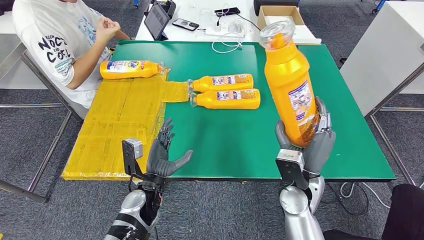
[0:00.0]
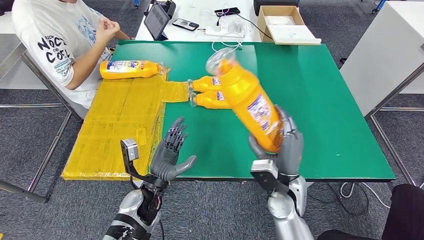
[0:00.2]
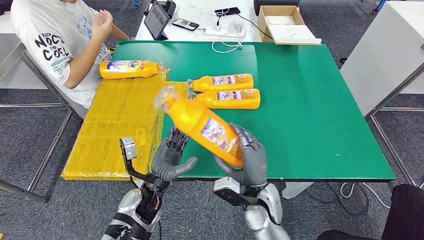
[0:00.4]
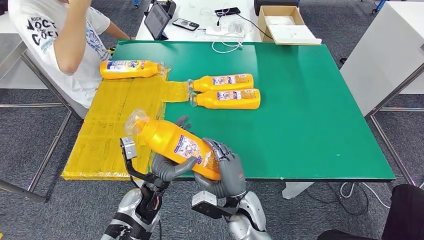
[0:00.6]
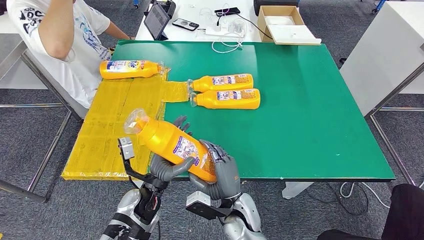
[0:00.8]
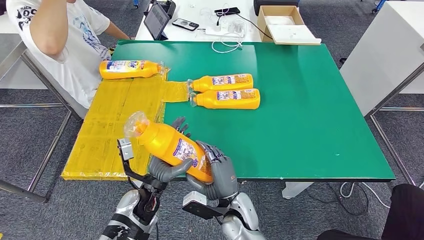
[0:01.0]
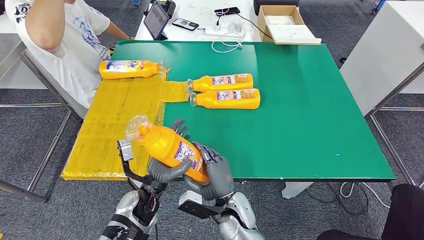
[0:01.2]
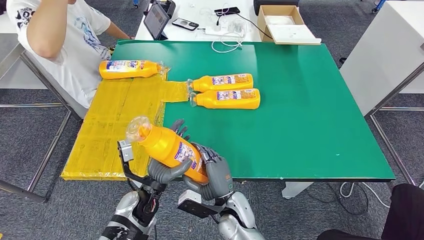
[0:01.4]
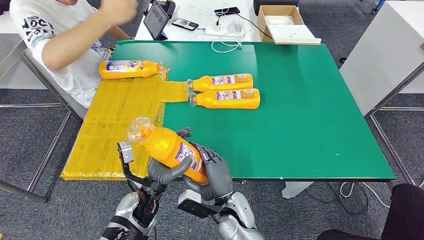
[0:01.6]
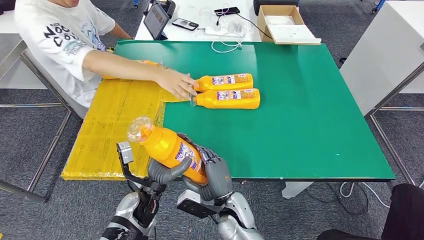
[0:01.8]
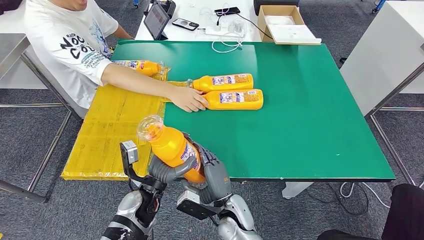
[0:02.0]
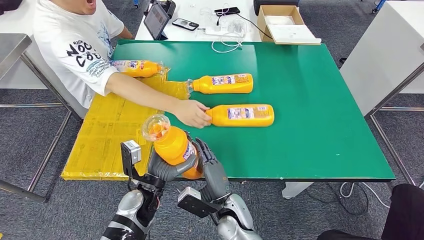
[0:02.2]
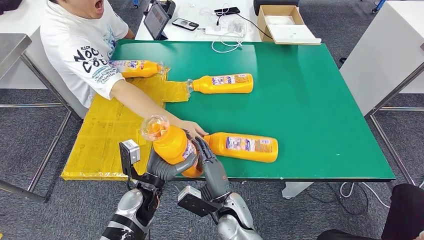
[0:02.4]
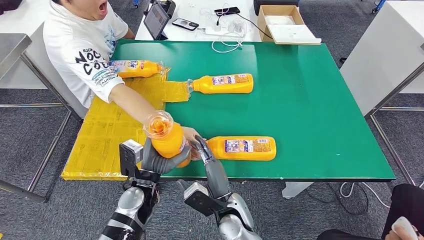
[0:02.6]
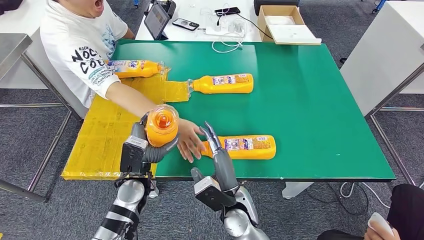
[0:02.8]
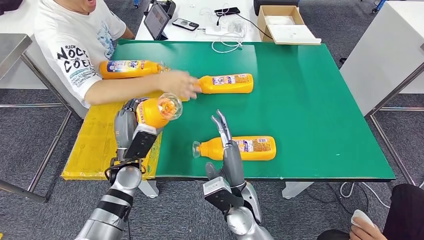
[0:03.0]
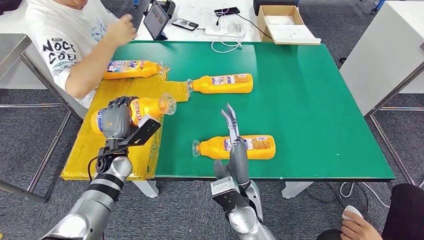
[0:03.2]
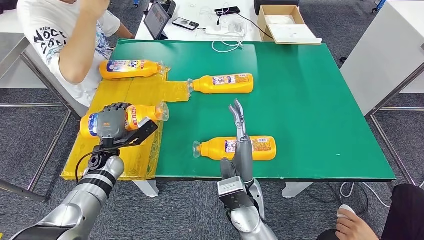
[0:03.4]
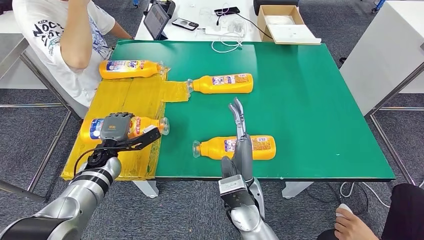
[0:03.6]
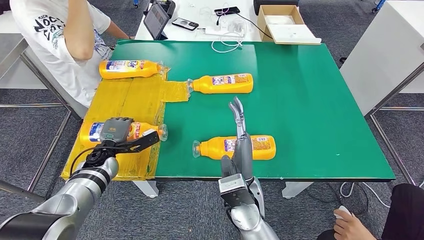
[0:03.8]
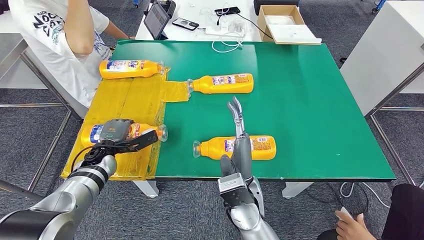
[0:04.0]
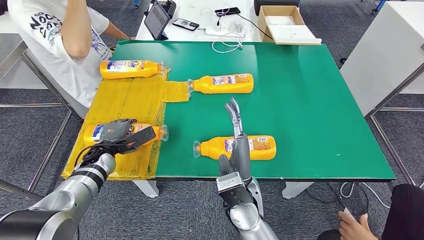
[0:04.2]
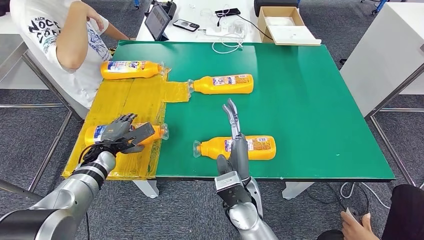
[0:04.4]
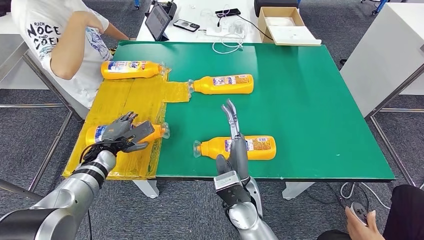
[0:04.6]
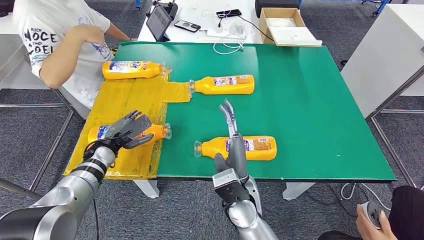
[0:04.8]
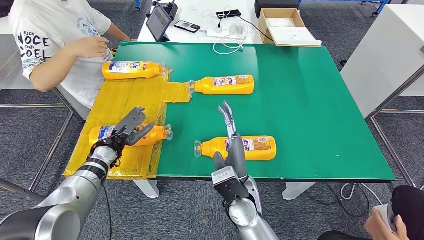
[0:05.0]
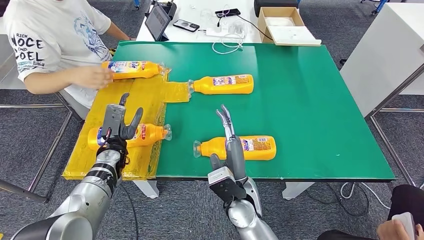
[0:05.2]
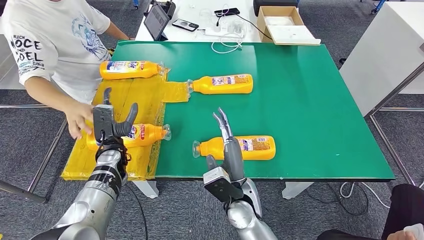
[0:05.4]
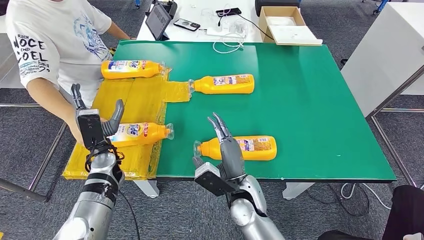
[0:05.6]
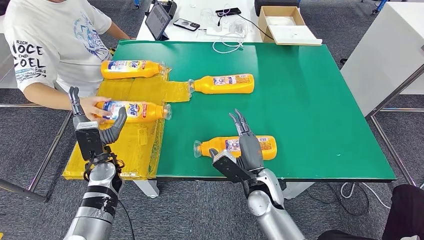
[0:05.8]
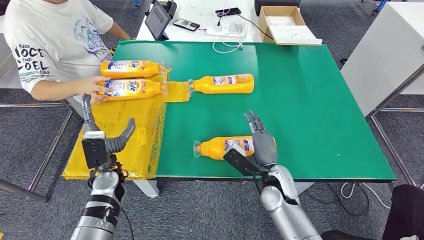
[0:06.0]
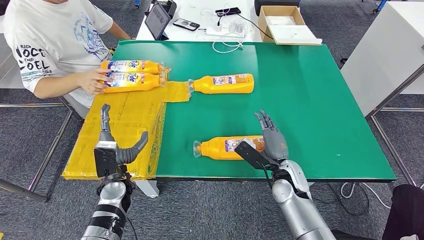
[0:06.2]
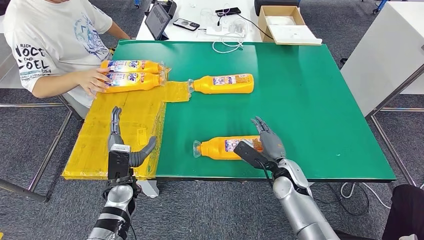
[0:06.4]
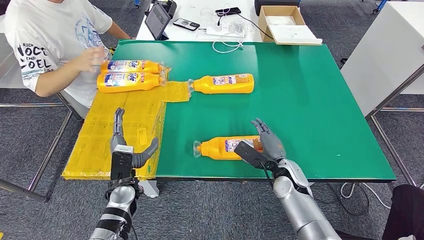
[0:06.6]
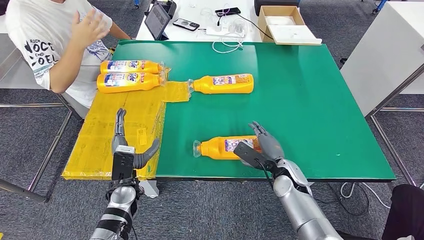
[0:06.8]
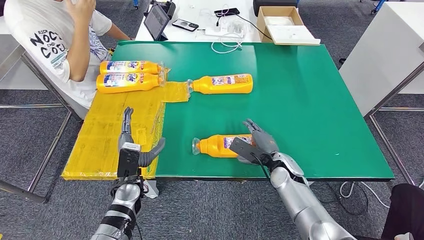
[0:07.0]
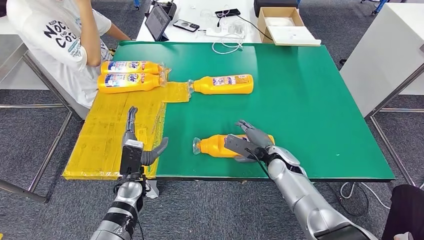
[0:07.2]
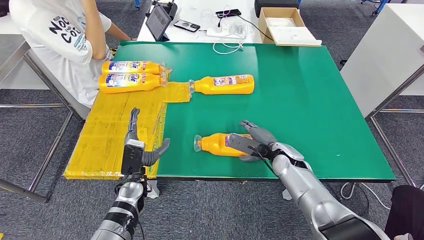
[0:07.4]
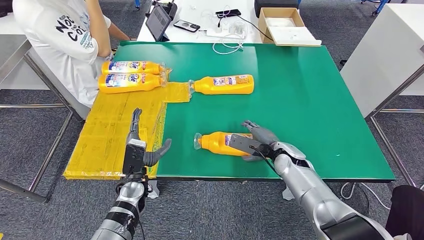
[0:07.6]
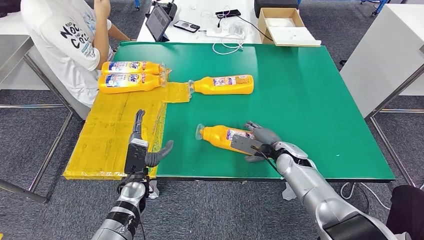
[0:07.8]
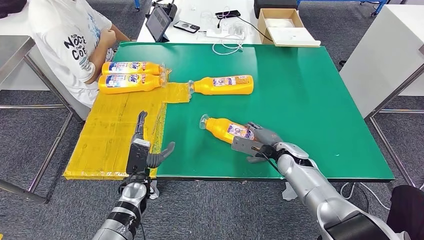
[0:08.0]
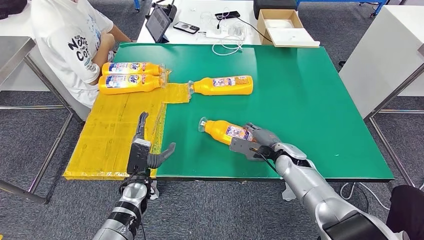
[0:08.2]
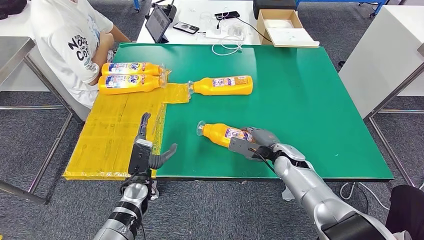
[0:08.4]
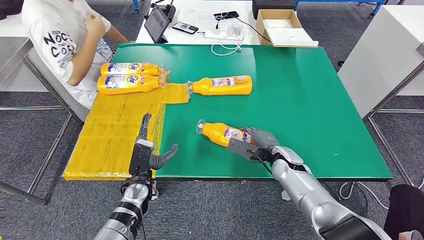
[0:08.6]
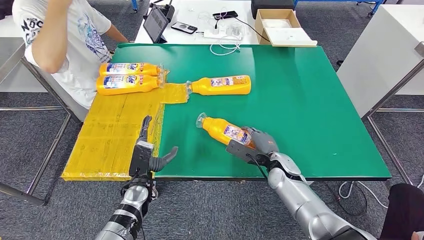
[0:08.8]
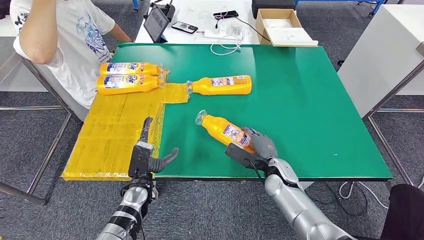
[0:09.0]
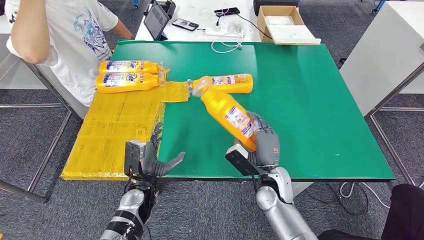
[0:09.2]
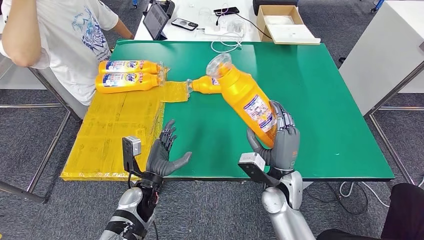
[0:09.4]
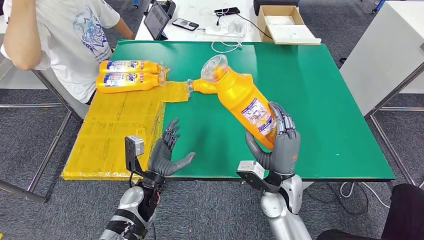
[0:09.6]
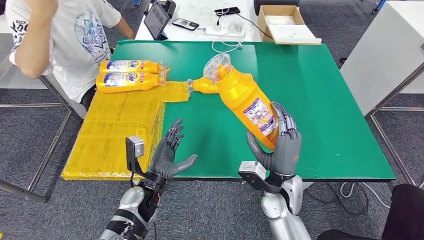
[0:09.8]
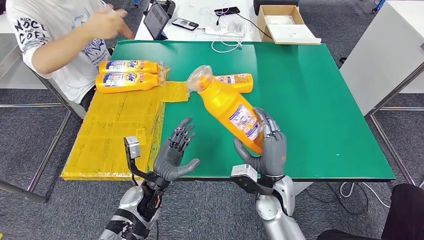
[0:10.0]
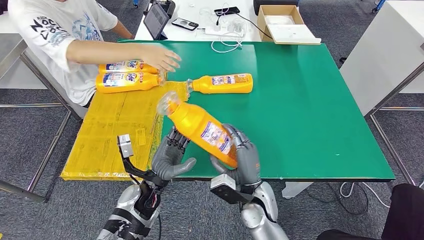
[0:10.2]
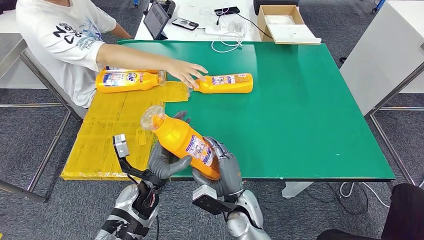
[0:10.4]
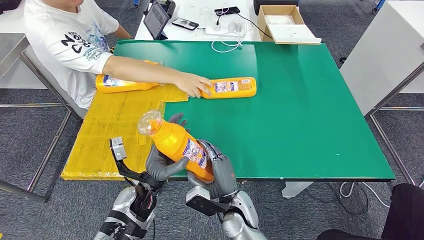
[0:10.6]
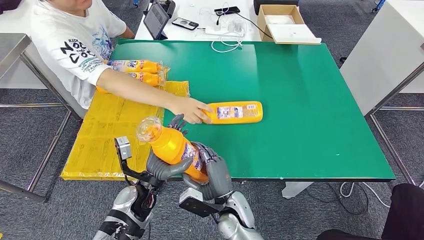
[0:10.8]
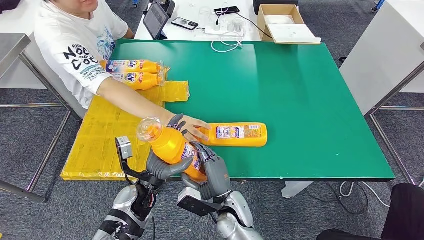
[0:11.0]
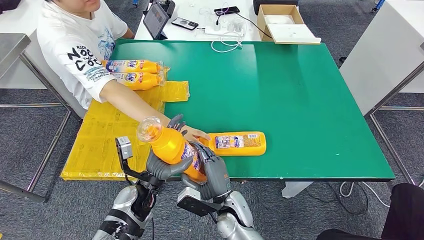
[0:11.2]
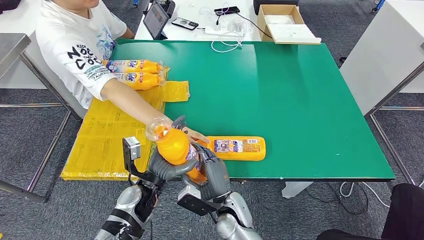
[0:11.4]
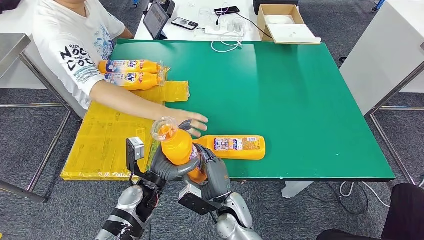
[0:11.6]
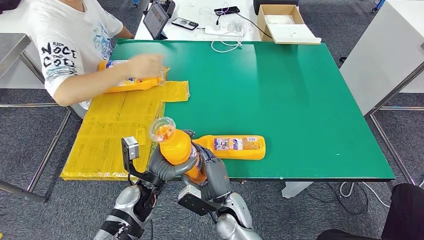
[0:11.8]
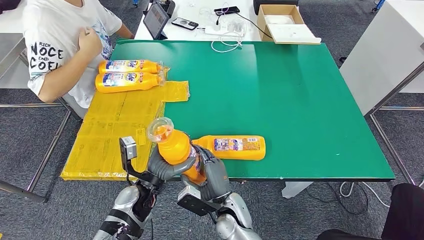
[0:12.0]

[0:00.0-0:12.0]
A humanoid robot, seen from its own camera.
Step, 0:00.2 to 0:05.8: Flip the fast-moving consumer goods bottle to the front side.
Step, 0:06.2 to 0:09.8: Pick up the fast-moving consumer goods bottle from the table.

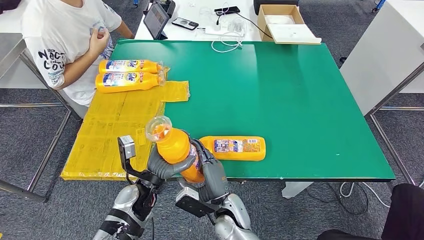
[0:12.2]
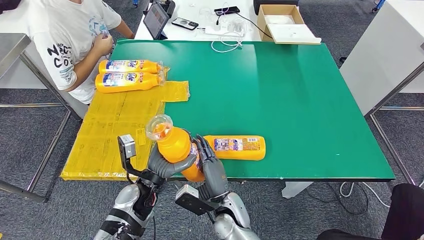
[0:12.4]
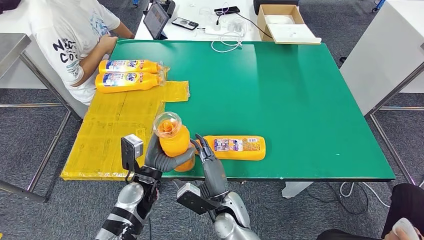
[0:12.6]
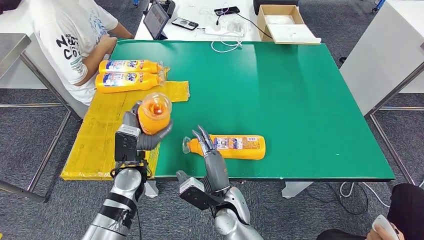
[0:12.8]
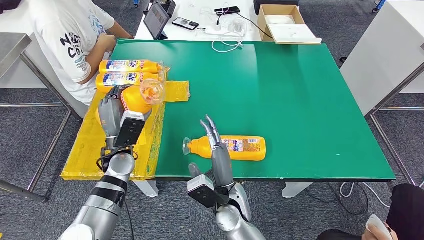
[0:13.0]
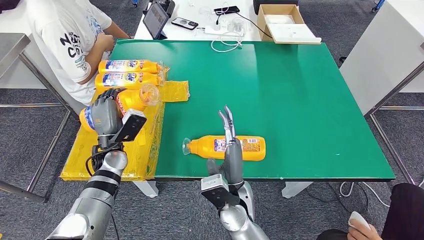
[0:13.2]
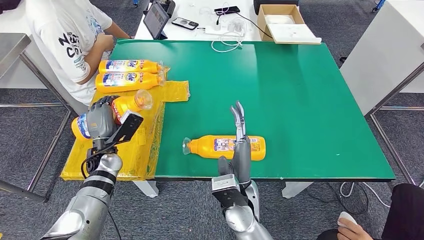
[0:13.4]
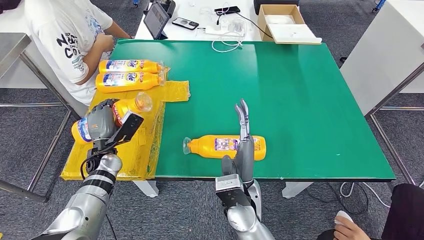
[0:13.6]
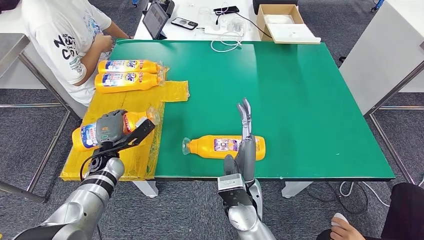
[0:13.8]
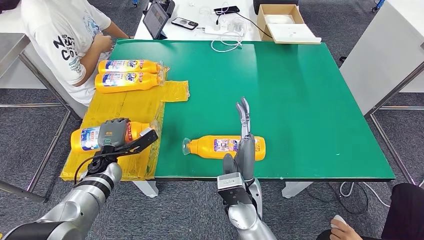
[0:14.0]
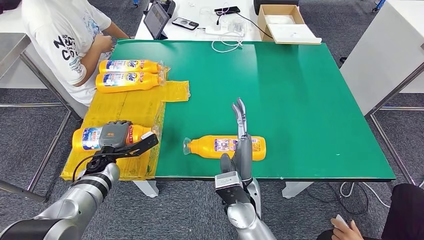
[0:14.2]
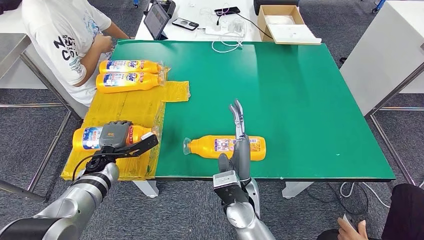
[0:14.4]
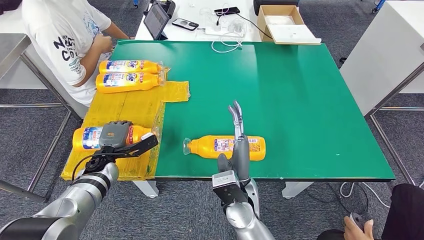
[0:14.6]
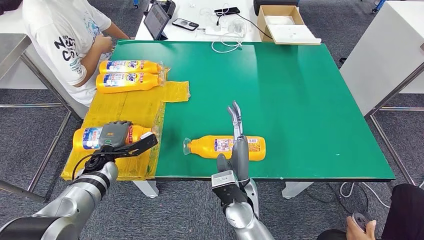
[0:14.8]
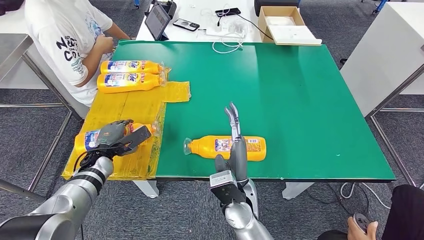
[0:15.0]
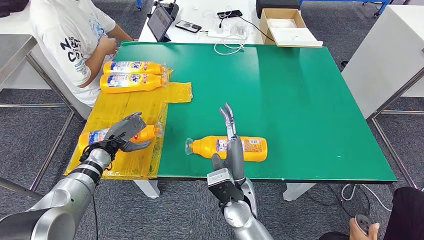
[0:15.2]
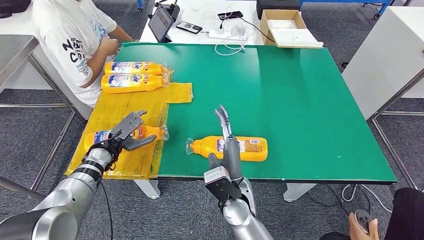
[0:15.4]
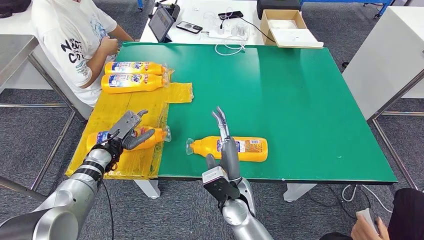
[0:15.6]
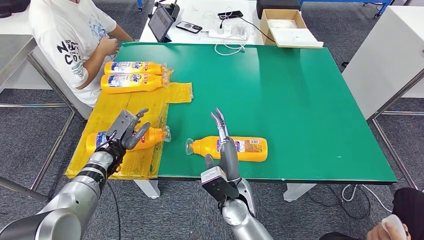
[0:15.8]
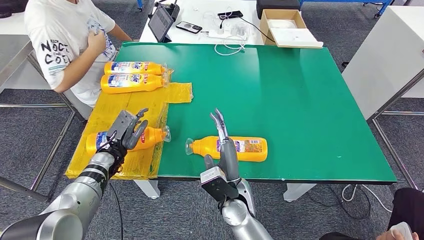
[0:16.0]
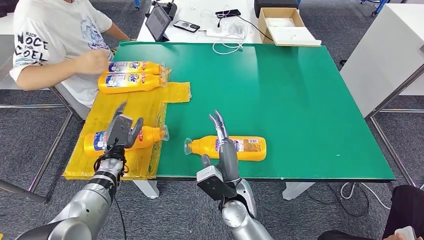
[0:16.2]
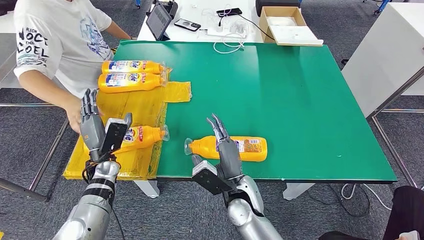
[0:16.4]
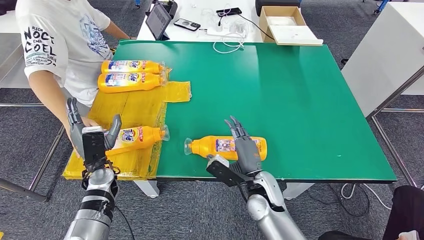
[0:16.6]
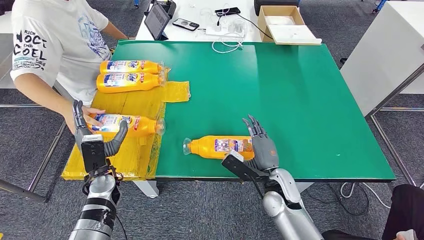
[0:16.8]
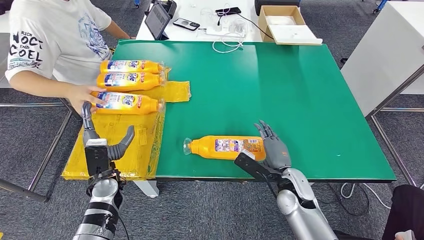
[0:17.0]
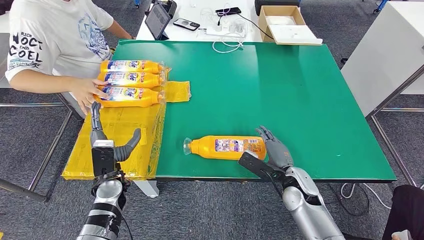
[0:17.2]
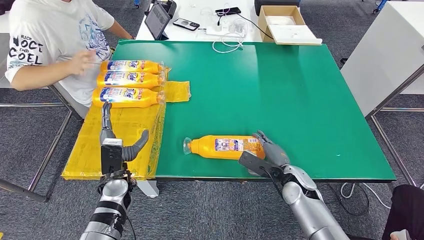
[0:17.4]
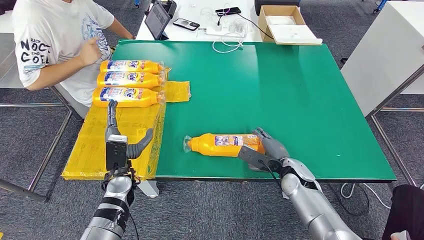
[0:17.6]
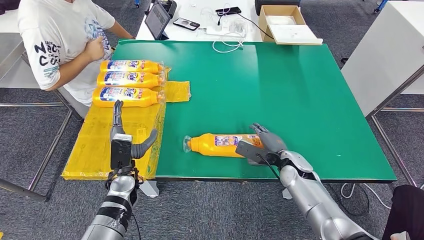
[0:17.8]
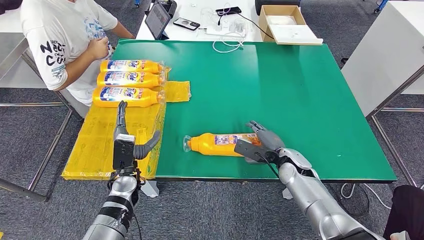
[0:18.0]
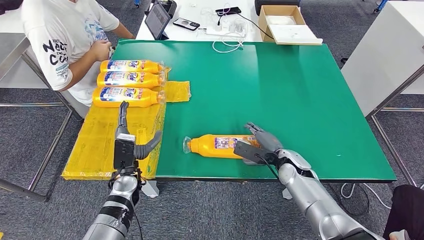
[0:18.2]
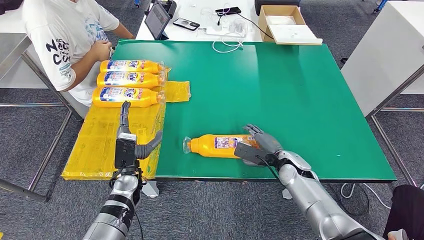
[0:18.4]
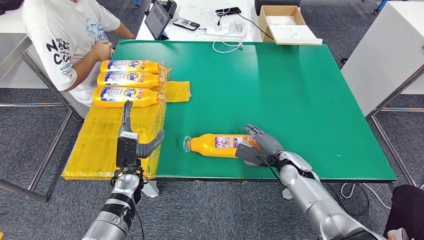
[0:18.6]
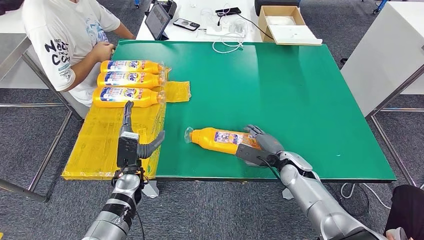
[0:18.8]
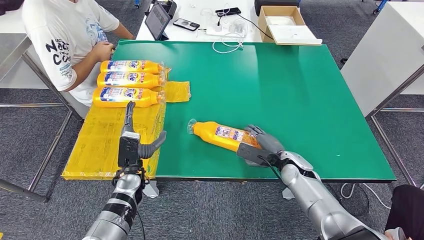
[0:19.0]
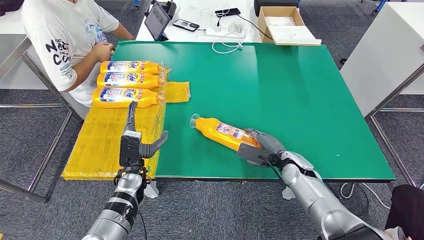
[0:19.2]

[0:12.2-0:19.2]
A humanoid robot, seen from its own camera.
Step, 0:12.2 to 0:15.8: Flip the fast-moving consumer goods bottle to the front side.
0:17.8 to 0:19.2: The hands move only a little.
